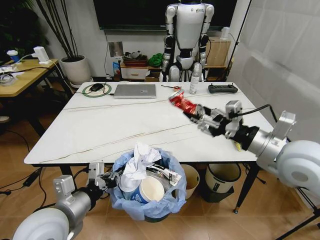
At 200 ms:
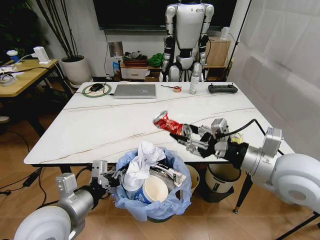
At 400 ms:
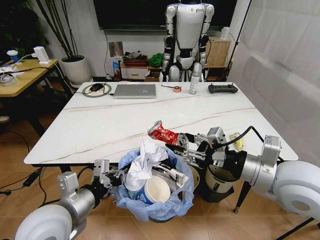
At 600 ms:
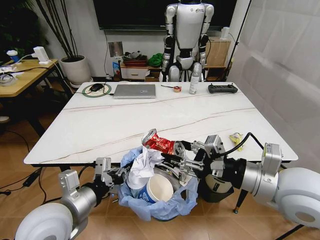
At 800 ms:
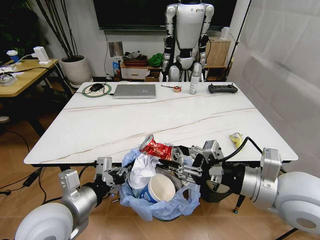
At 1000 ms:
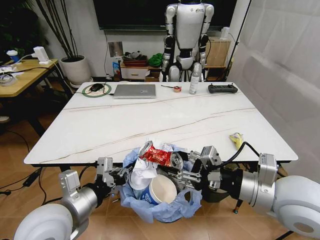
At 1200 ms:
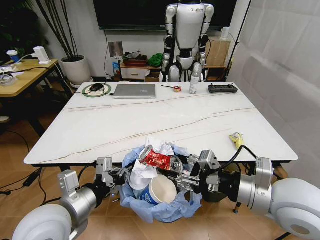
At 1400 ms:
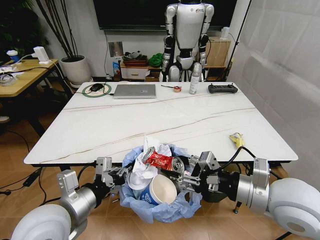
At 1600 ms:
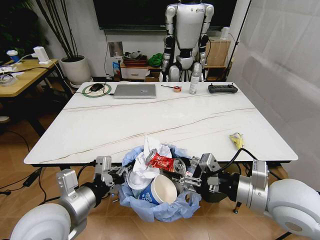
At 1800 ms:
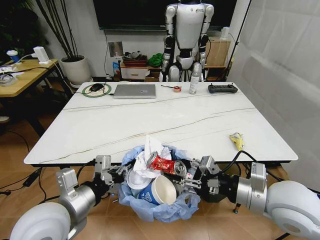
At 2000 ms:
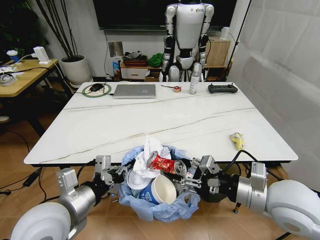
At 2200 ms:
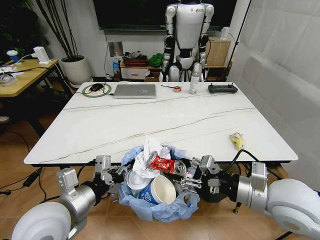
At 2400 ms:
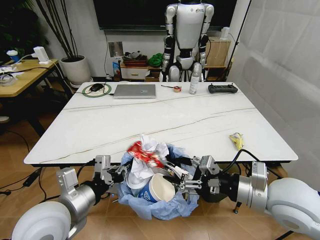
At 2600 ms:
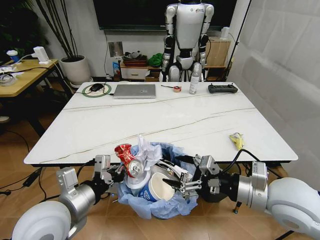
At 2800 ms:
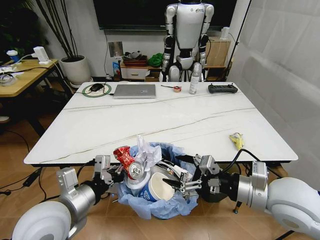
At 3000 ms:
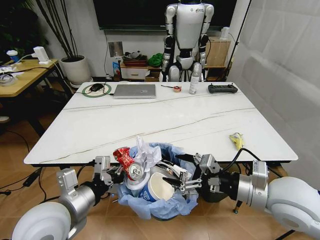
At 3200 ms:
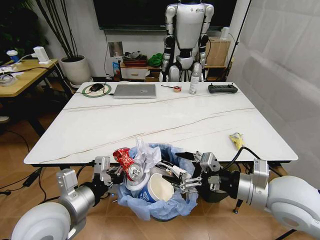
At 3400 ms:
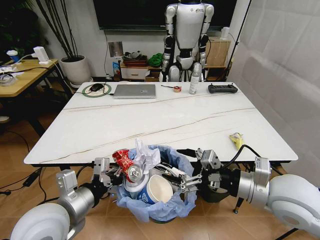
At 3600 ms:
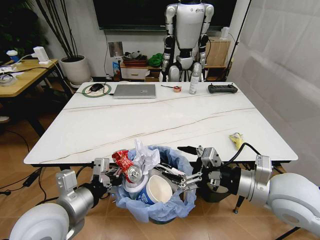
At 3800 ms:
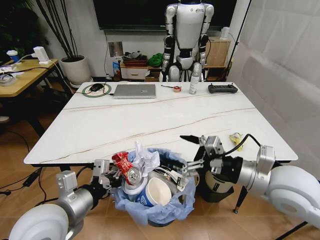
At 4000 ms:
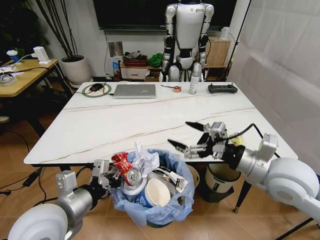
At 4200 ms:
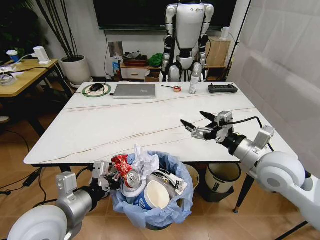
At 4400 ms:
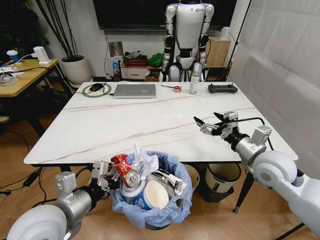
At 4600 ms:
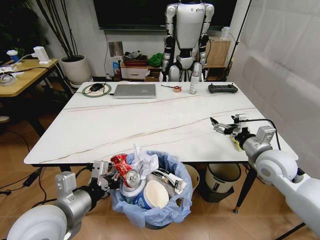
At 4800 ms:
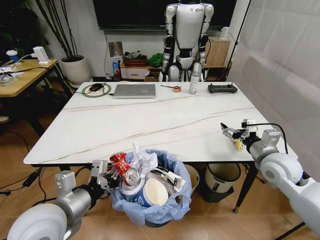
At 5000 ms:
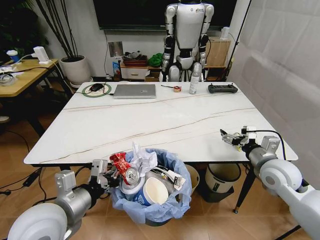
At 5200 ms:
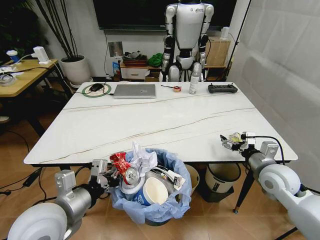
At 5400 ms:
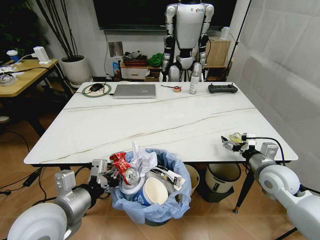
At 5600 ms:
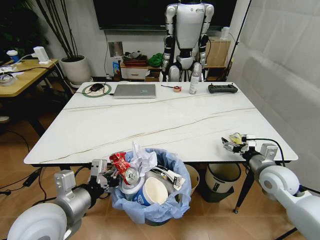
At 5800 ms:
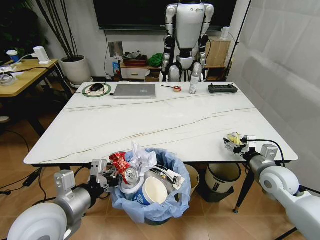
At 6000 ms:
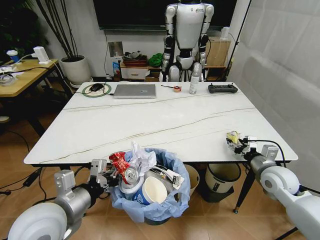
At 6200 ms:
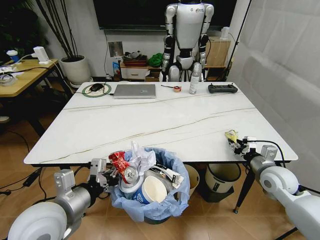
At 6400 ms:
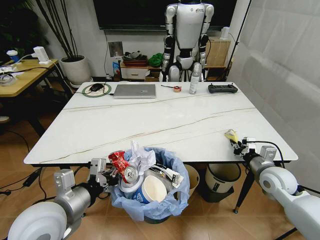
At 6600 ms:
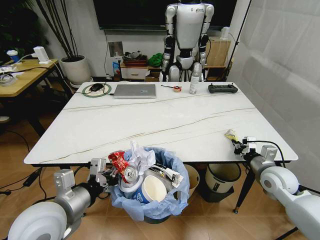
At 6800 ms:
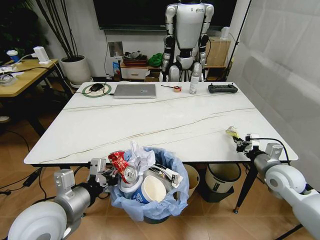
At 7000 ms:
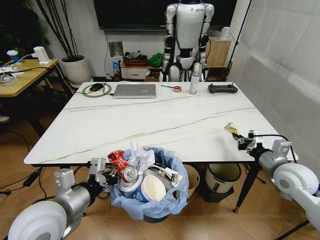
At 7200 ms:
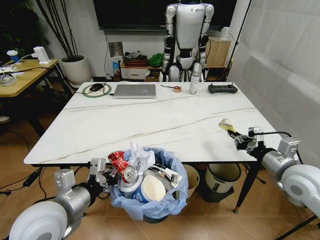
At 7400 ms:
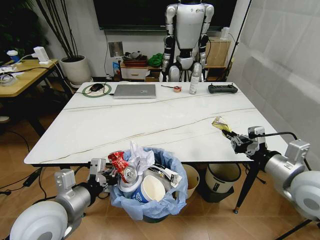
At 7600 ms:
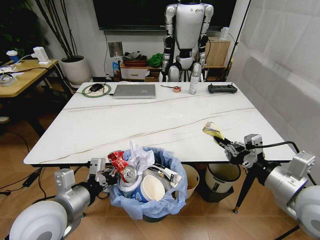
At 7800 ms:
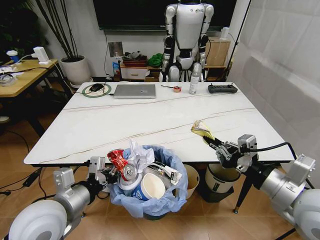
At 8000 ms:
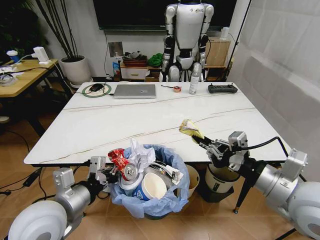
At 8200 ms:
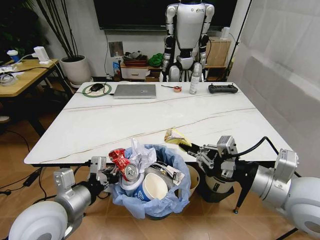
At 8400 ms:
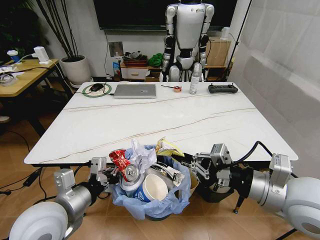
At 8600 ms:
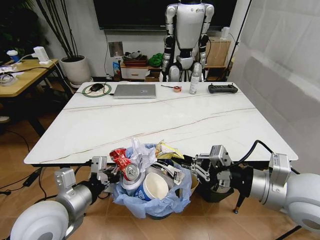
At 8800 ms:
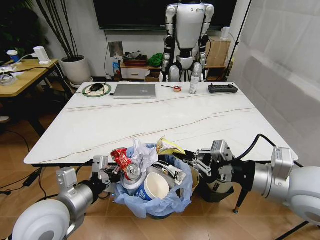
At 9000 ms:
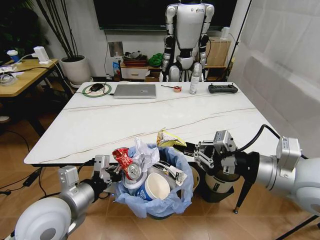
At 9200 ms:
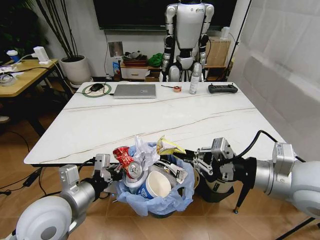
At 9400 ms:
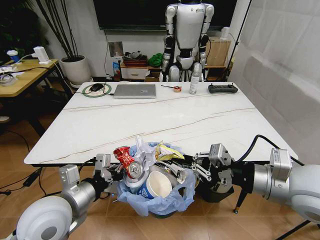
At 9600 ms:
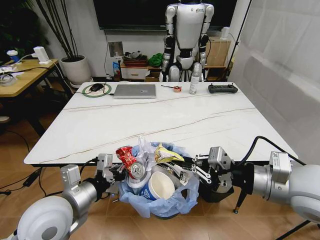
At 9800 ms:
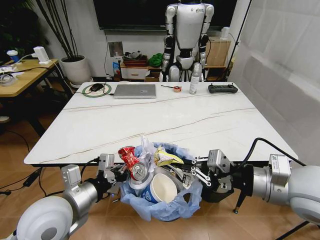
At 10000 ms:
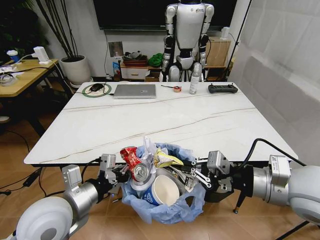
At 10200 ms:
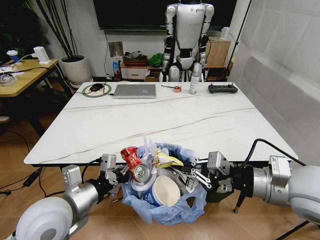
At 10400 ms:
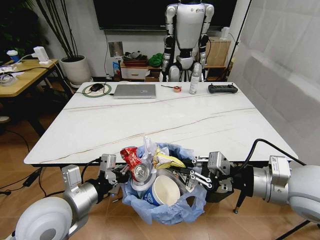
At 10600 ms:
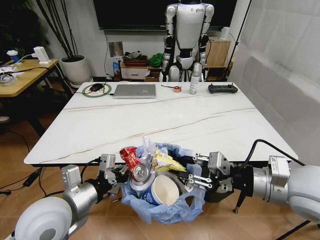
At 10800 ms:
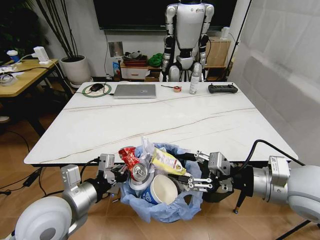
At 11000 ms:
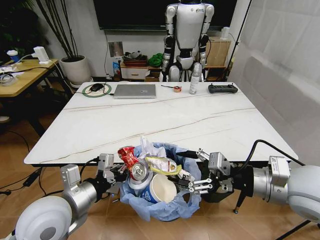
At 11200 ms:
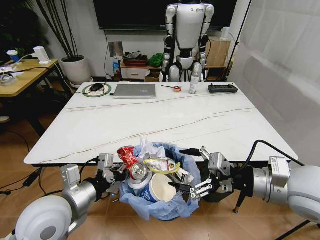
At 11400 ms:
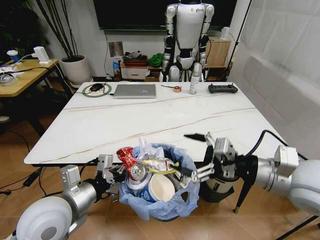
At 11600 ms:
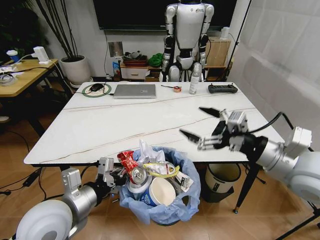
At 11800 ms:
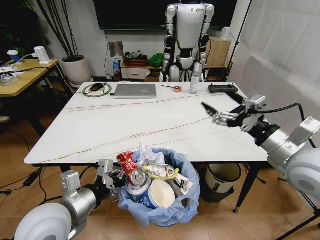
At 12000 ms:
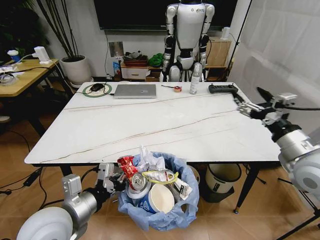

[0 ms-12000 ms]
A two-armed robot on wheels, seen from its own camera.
Task of the whole recording: Pick up the trash bin and place the trash from the table into it.
0 ms to 1600 ms: The right gripper moves backward and downward, about 10 cm.
1600 ms to 3000 ms: The right gripper opens its fingers.
3000 ms to 4400 ms: The right gripper shifts roughly 10 cm forward.
4400 ms to 6000 ms: The right gripper goes about 15 cm downward and to the right, and closes up.
6000 ms to 7600 ms: The right gripper moves upward, backward and to the left, about 20 cm, and closes up.
7600 ms to 9000 ms: The right gripper moves upward, about 5 cm.
9000 ms to 10400 ms: There are only small adjustments of the grippers.
10400 ms to 12000 ms: The right gripper is displaced to the right and forward by roughly 10 cm, and opens.

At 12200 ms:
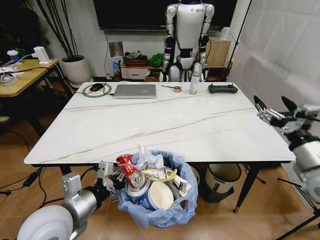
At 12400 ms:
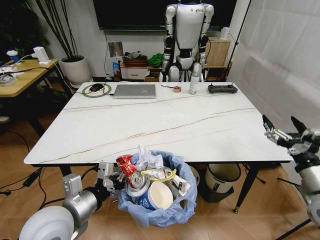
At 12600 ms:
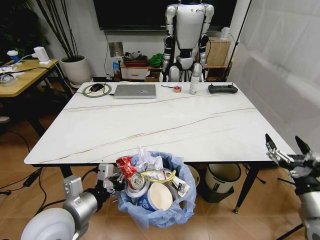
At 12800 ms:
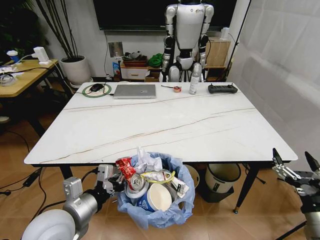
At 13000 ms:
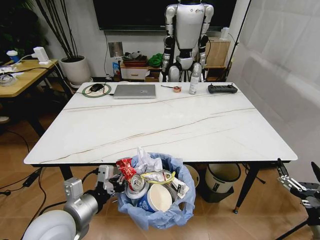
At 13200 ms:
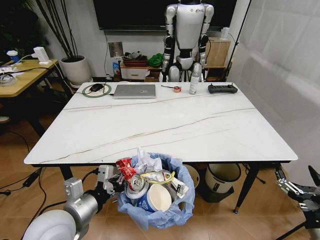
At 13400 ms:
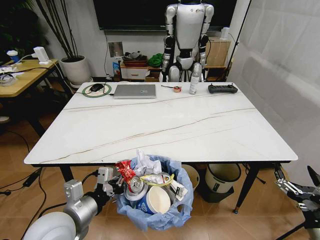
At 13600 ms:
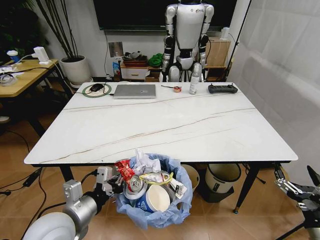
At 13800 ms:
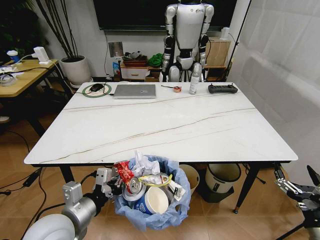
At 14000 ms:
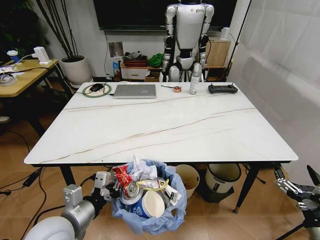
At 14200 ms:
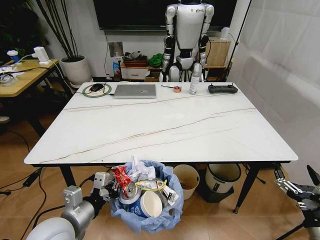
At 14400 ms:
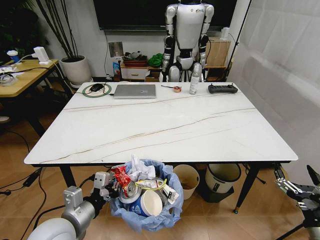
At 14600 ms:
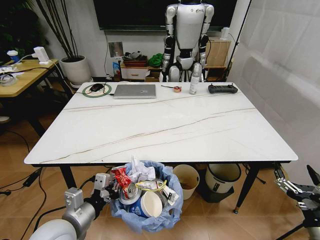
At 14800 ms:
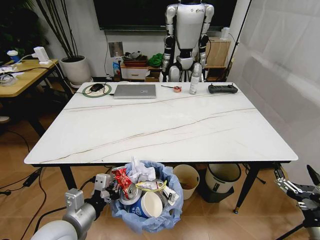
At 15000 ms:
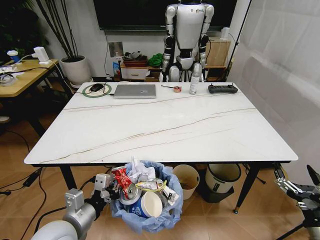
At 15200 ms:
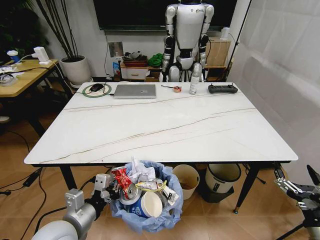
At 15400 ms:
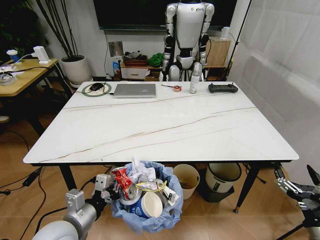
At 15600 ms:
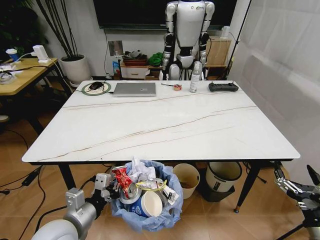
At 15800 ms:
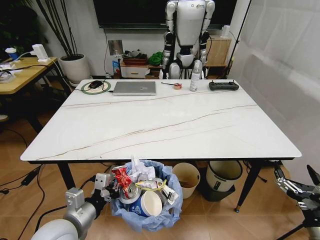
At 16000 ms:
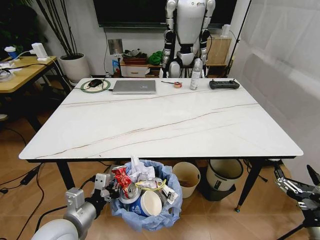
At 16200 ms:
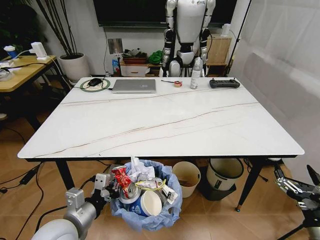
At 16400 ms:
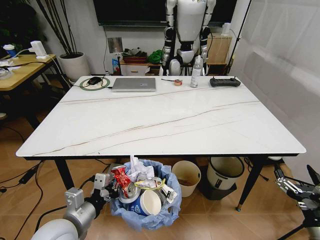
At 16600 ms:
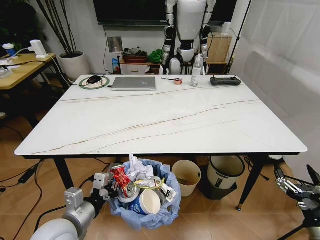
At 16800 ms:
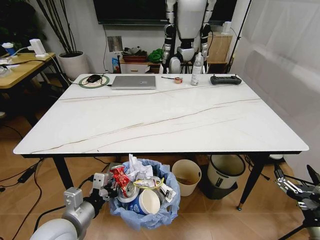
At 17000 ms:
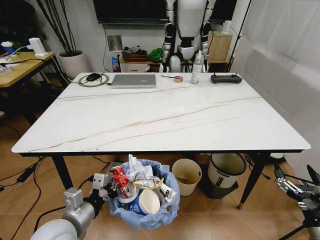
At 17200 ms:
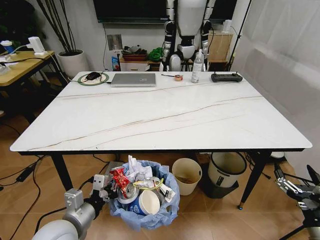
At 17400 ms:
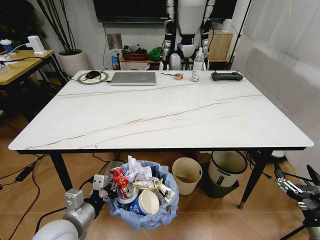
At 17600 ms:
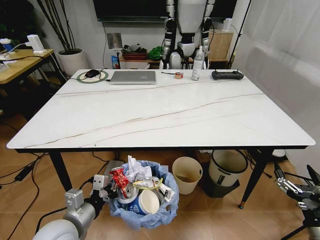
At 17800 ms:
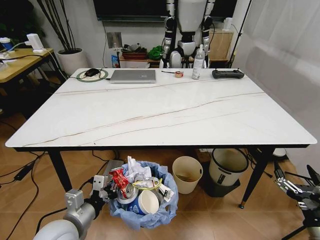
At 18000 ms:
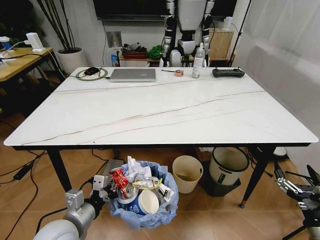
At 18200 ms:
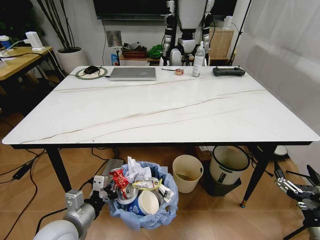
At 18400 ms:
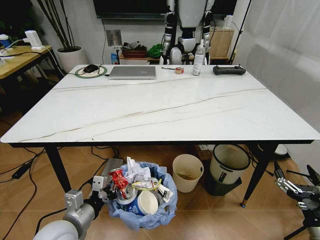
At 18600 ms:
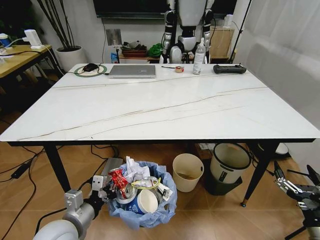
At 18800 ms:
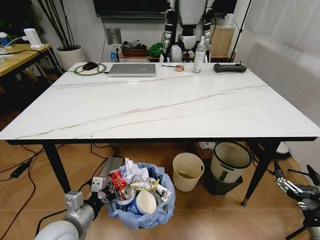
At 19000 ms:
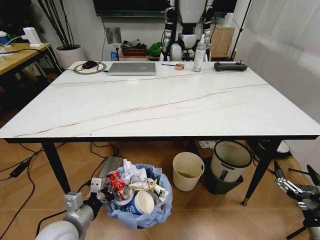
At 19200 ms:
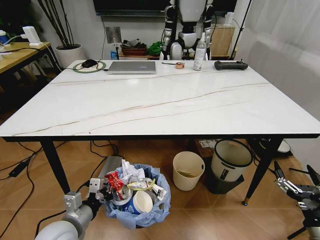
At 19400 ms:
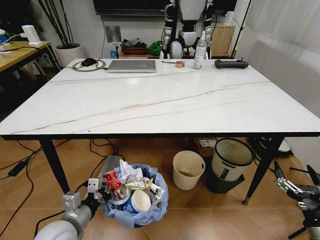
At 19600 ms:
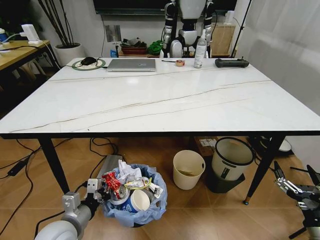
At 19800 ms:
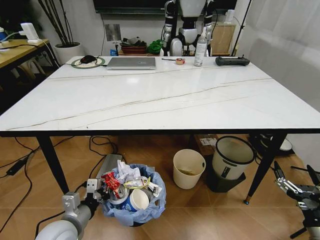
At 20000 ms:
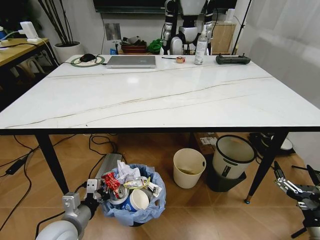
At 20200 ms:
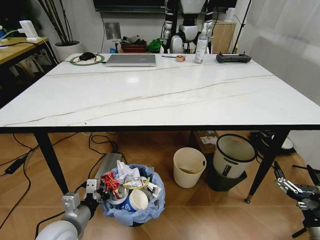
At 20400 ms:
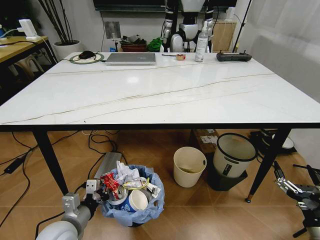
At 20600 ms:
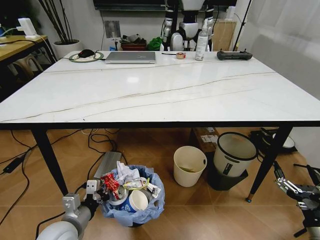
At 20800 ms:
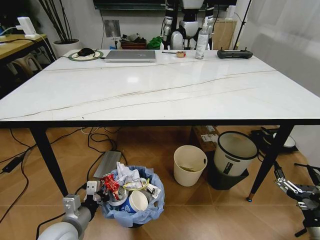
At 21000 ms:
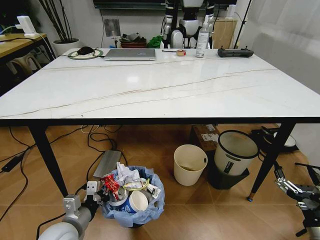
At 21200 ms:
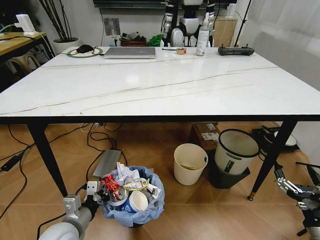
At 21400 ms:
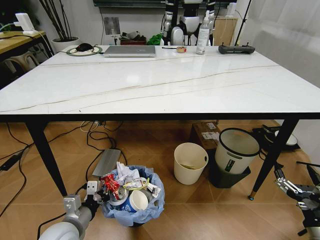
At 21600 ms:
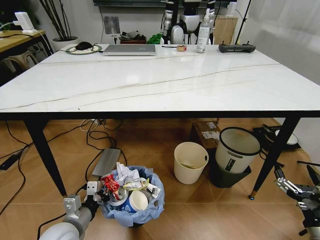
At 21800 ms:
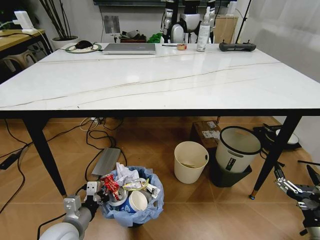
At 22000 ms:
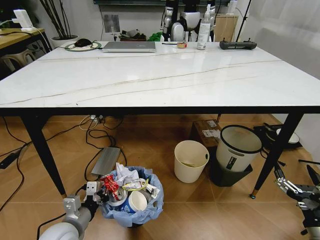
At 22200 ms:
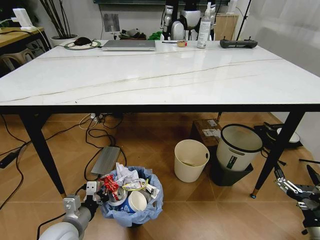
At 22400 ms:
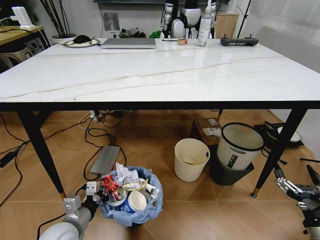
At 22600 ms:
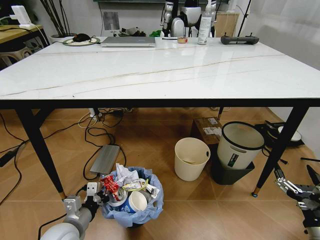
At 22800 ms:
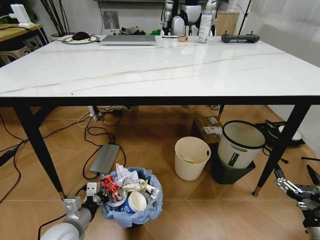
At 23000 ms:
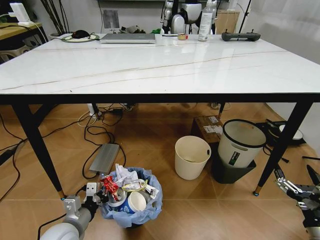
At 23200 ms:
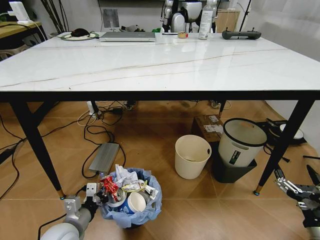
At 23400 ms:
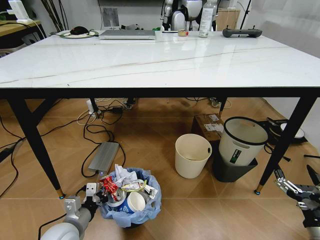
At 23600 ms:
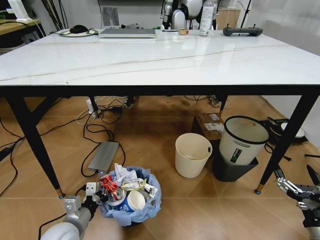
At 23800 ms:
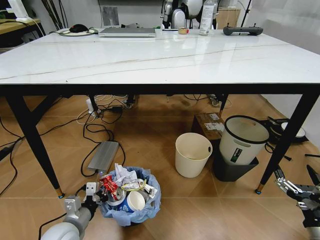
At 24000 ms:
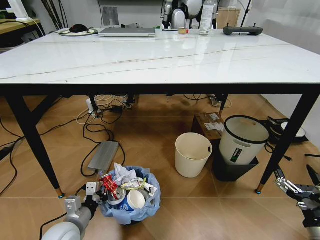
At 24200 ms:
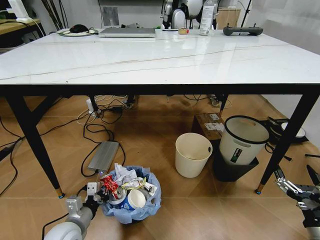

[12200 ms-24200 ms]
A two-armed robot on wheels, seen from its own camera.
Task of the whole recording: Pick up the trash bin and place the trash from the table into it.
12200 ms to 13800 ms: The right gripper shifts approximately 25 cm downward and backward.
13800 ms to 15200 ms: The grippers make only small movements.
